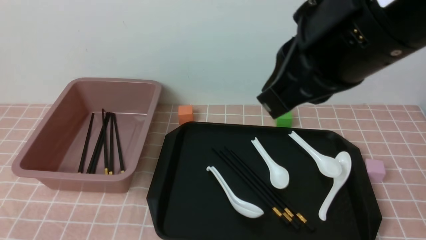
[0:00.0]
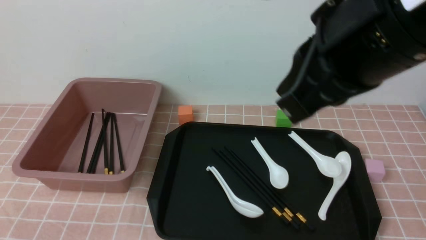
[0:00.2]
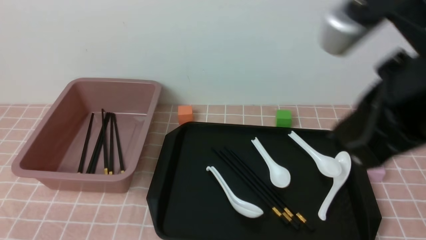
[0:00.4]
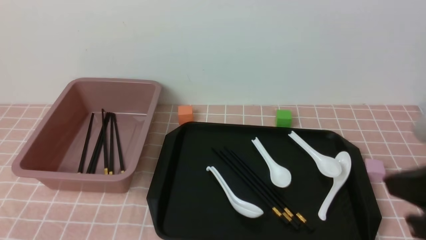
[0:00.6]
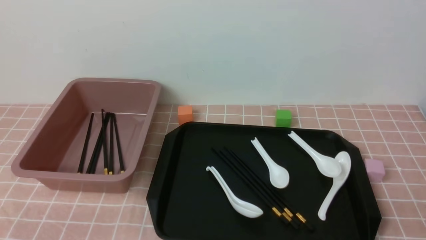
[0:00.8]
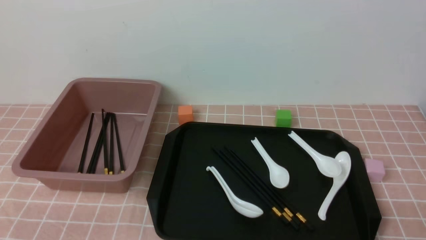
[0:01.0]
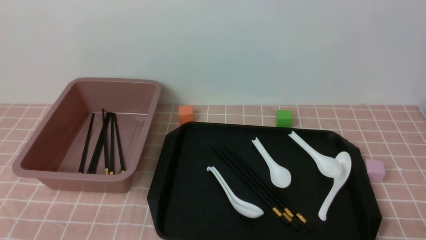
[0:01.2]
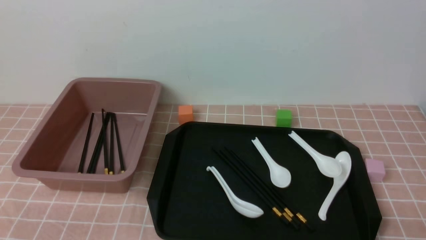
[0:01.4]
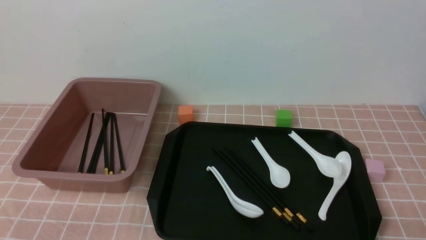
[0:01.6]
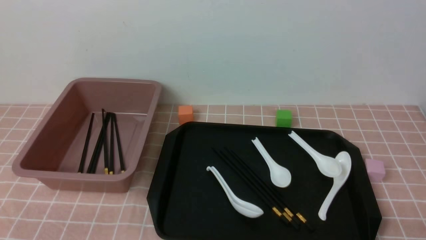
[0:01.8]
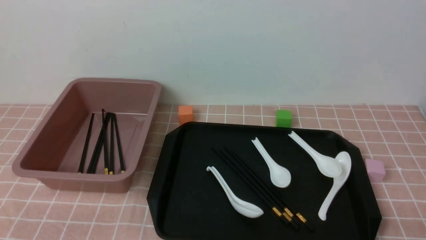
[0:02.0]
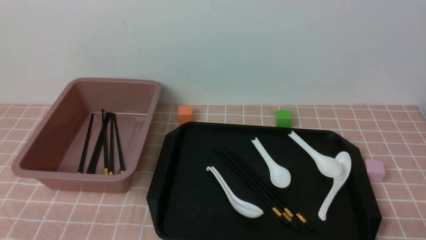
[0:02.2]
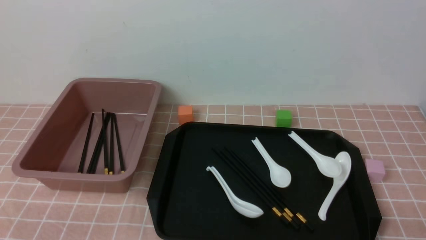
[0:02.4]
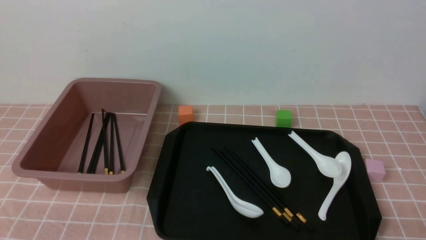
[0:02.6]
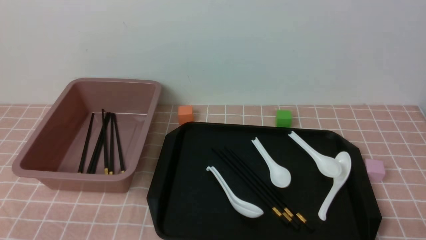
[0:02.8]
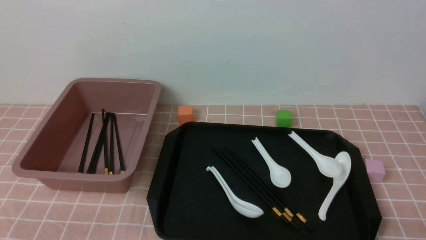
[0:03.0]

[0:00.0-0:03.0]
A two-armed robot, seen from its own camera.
0:00.0 to 0:01.6: The right gripper shifts about 35 cm downward, to the right and backward.

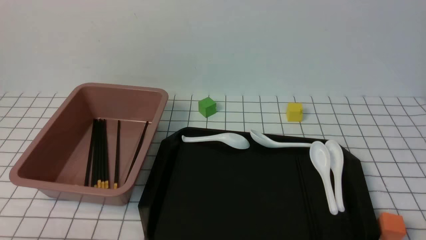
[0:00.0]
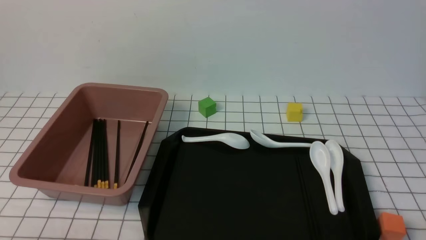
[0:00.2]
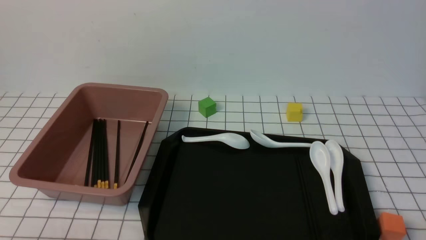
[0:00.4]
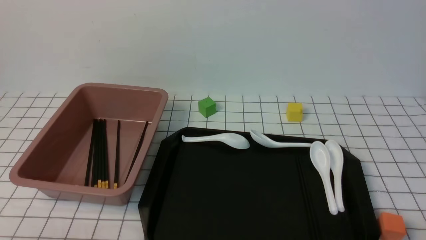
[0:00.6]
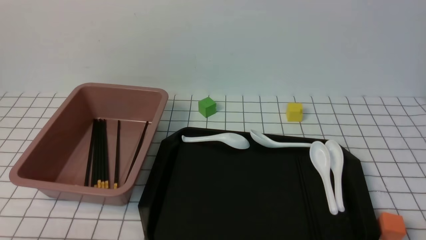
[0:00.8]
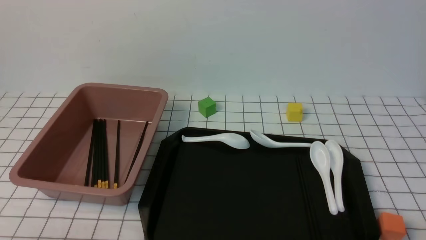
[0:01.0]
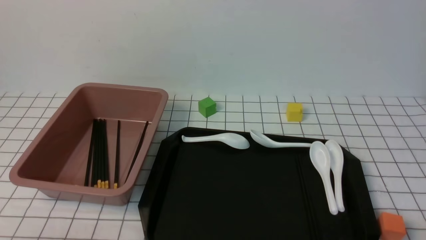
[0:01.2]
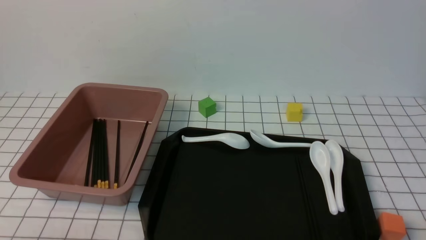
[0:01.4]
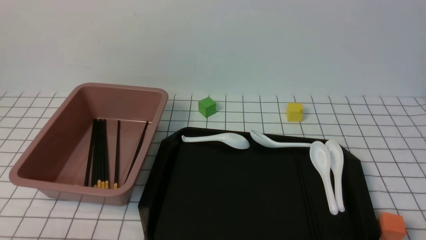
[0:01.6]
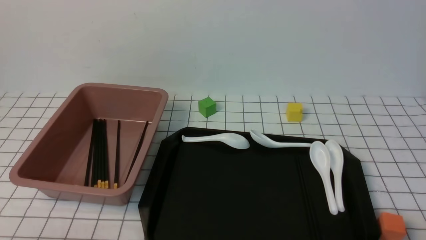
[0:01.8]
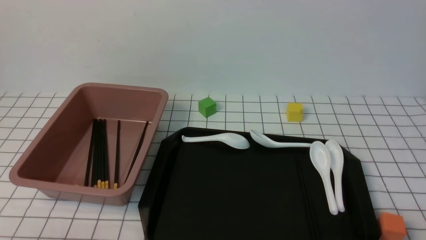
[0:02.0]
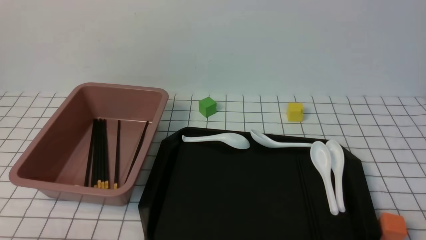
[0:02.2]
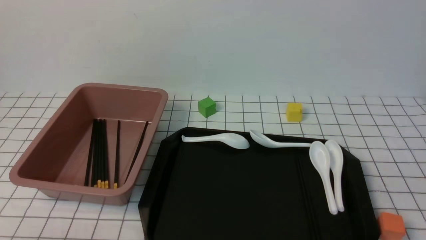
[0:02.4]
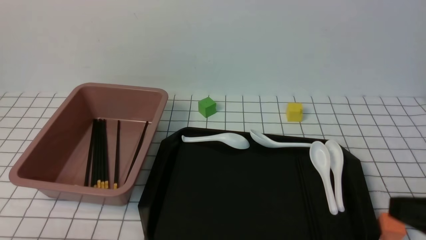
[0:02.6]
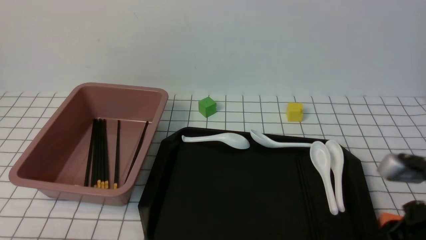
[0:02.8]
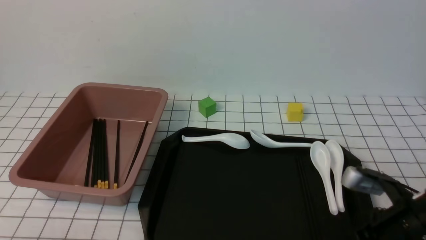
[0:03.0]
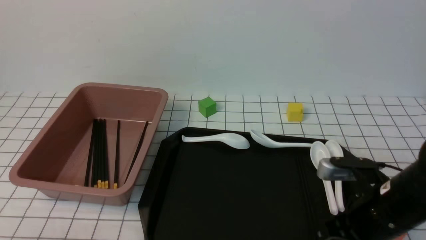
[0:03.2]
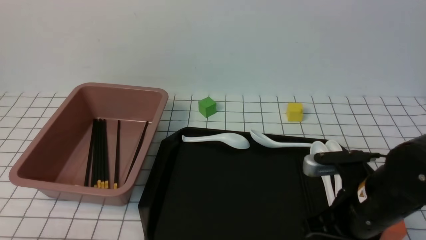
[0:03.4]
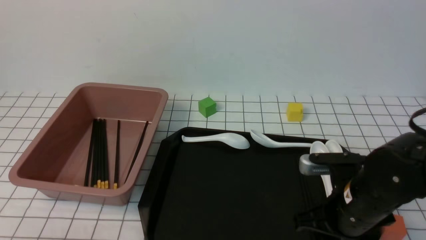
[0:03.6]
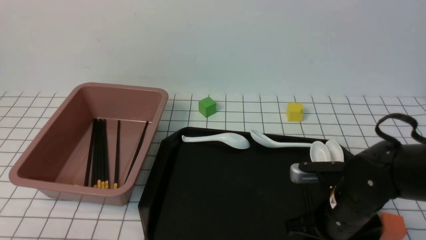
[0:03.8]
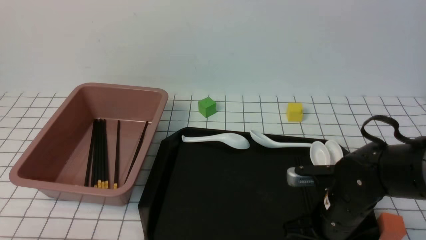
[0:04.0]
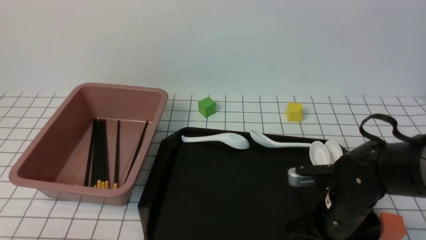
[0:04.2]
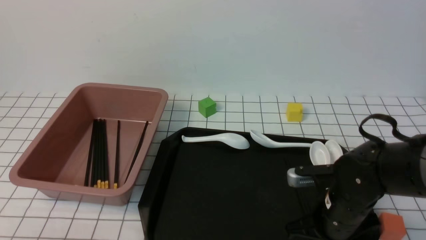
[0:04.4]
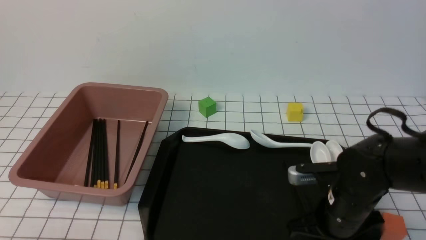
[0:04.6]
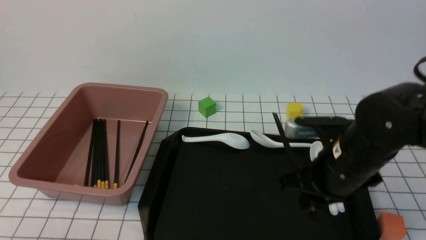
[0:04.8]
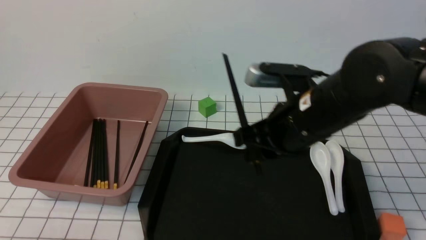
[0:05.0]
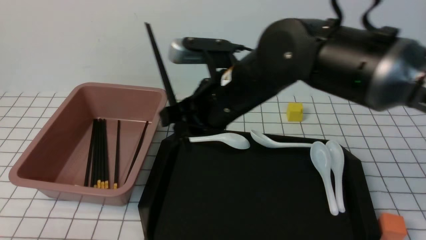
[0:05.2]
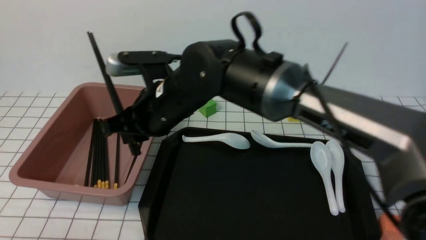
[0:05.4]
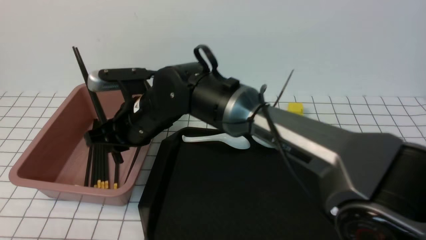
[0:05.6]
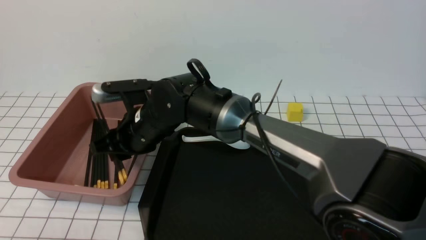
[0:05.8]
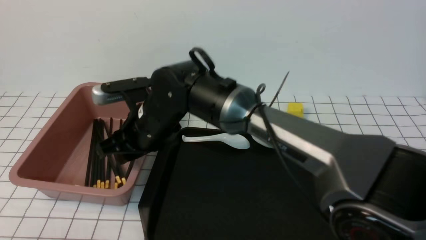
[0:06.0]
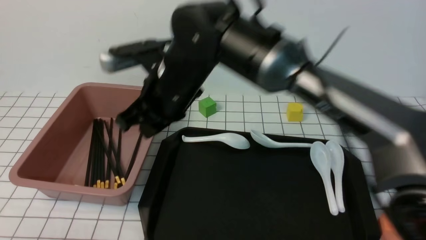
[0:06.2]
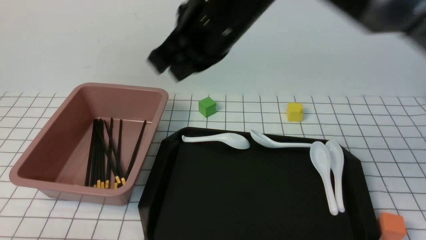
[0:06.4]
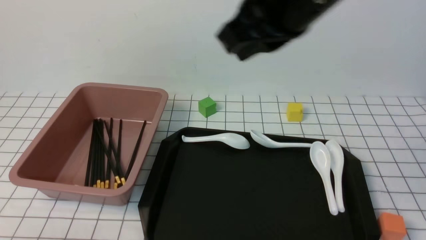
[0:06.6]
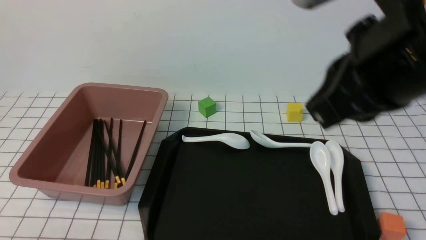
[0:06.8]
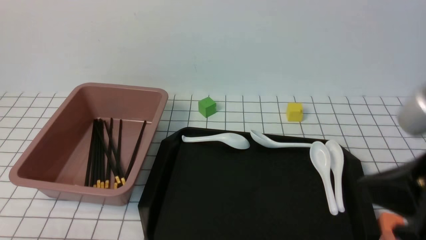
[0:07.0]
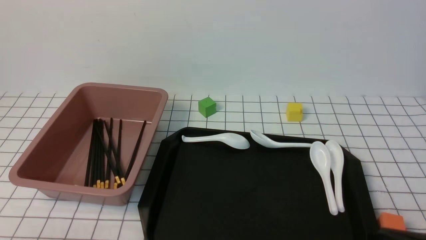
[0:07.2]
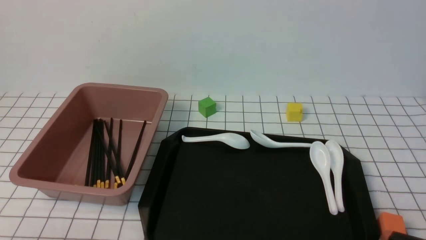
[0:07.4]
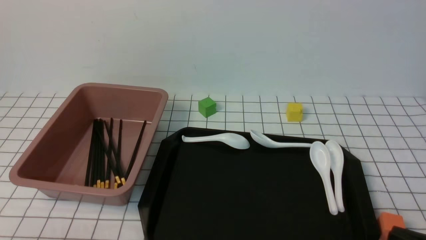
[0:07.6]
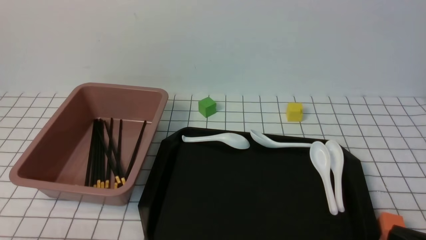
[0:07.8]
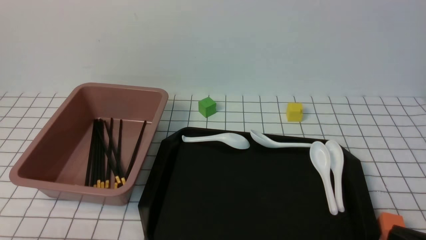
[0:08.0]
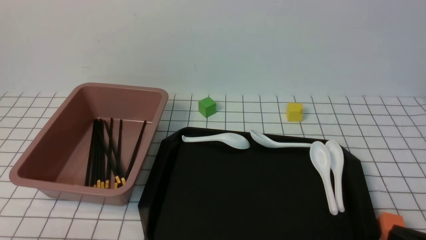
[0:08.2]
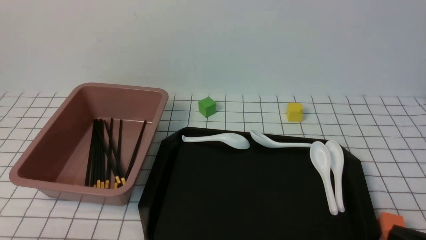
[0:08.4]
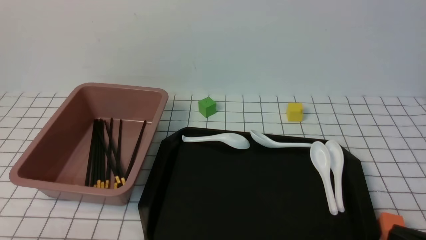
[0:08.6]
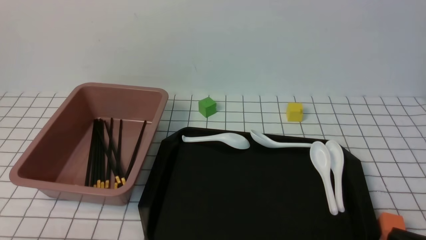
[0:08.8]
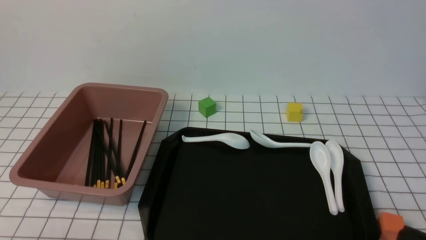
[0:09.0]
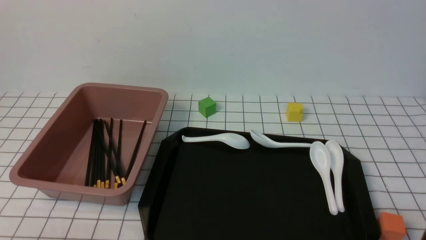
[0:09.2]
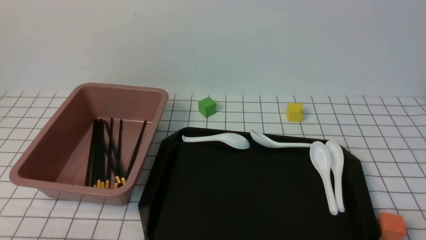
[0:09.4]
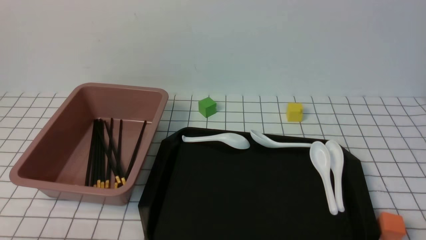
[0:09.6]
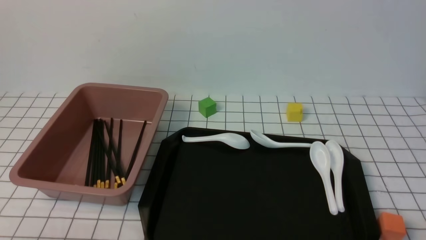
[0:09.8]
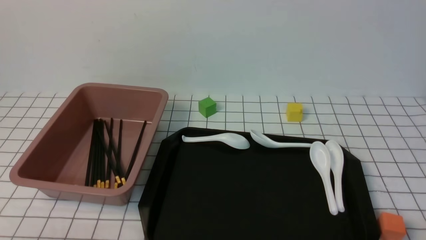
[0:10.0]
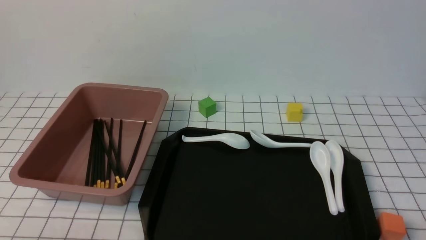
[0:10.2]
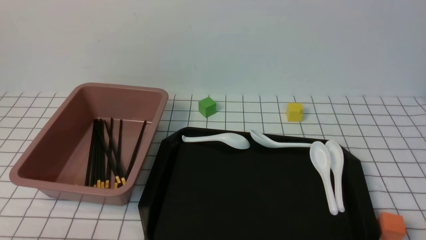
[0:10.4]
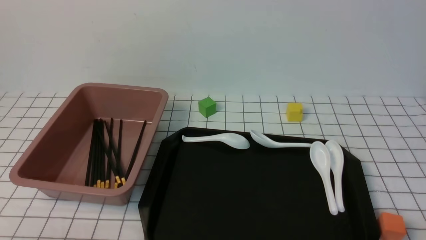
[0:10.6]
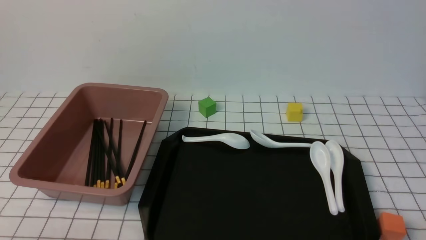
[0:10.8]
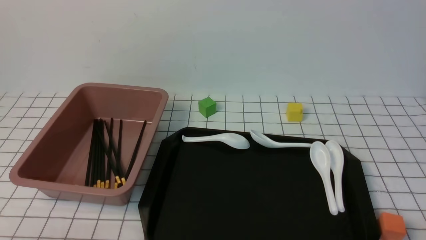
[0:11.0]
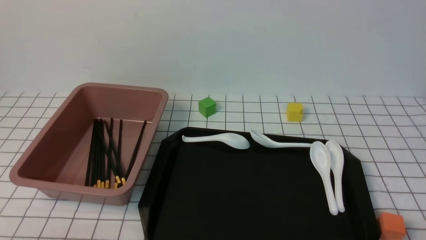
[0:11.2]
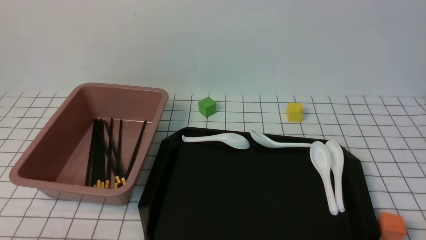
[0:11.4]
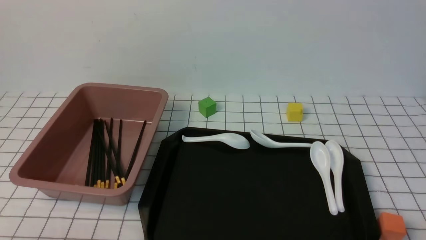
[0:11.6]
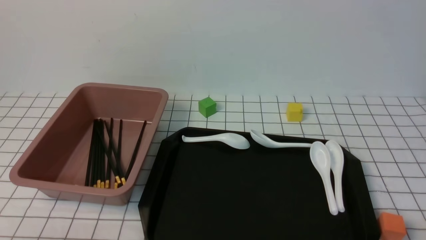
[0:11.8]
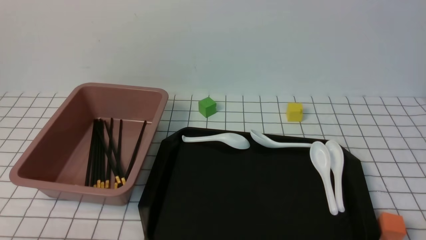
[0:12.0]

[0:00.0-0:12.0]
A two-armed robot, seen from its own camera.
0:01.6 to 0:03.0: The right gripper travels forward and to the left by approximately 15 cm, and closes up.
0:03.0 to 0:04.4: The right gripper is displaced downward, to the left and forward by approximately 10 cm, and opens.
0:04.4 to 0:06.0: The right gripper goes about 30 cm to the left and upward.
0:06.0 to 0:07.6: The right gripper moves to the right and backward, roughly 40 cm, and closes its fingers.
0:10.4 to 0:12.0: Both grippers stay about where they are.

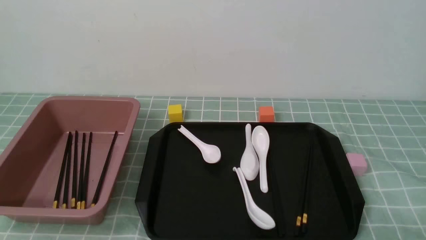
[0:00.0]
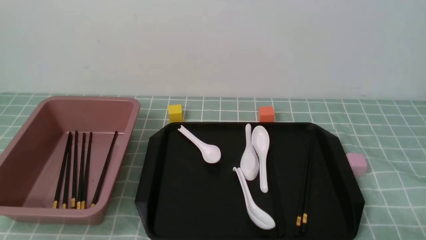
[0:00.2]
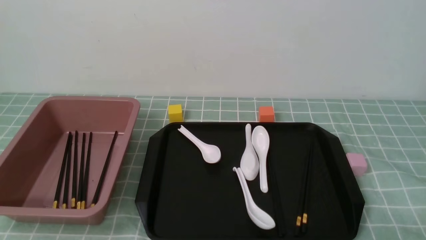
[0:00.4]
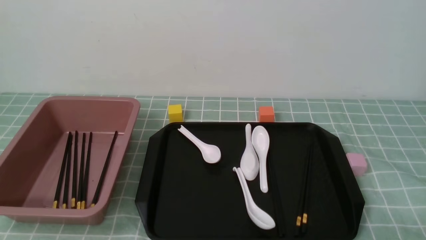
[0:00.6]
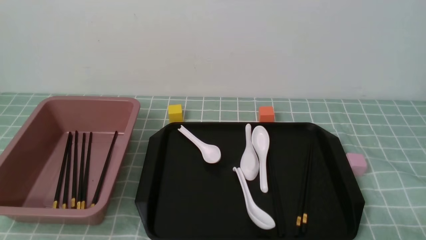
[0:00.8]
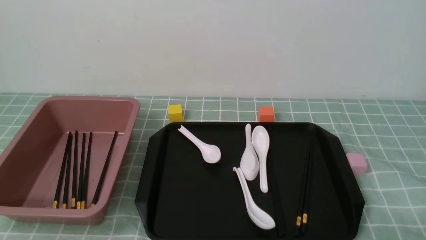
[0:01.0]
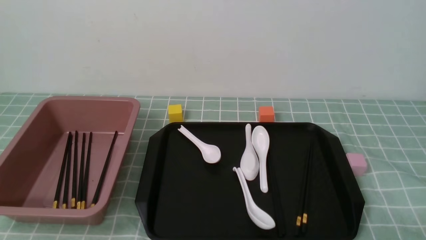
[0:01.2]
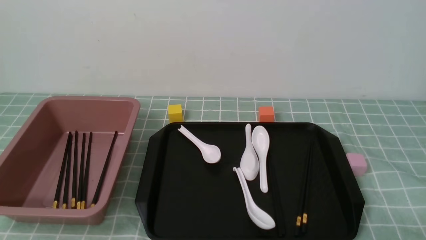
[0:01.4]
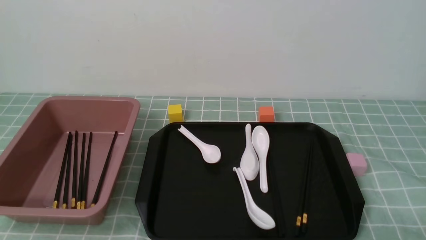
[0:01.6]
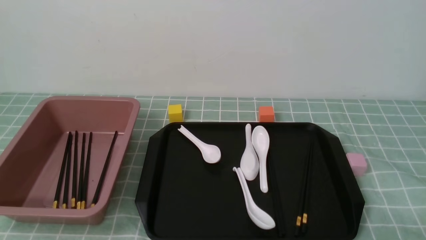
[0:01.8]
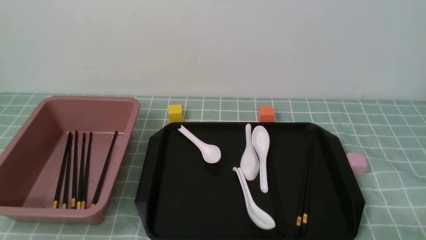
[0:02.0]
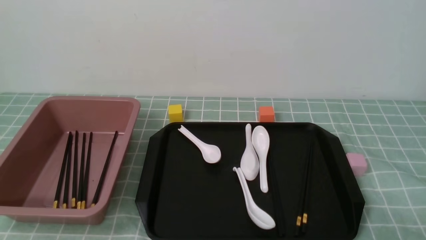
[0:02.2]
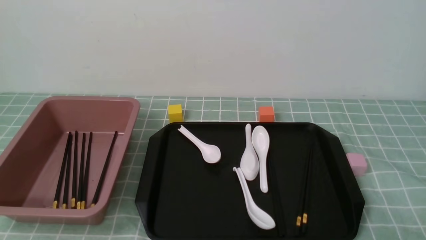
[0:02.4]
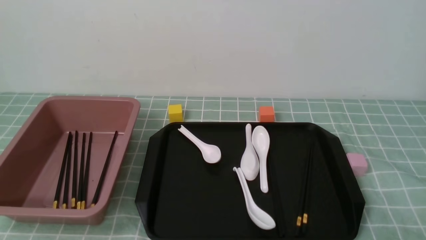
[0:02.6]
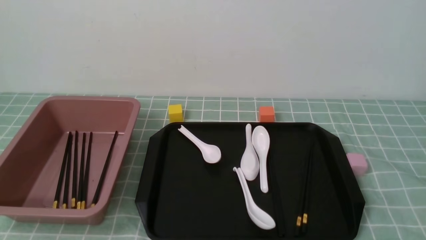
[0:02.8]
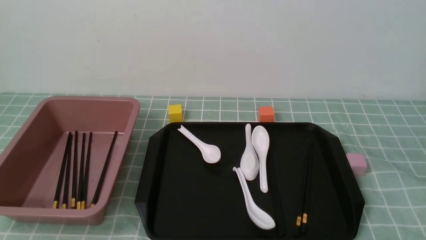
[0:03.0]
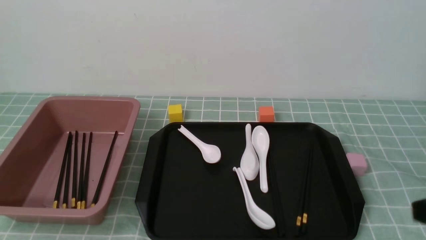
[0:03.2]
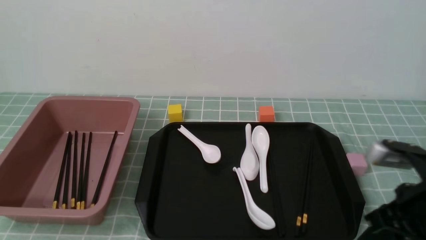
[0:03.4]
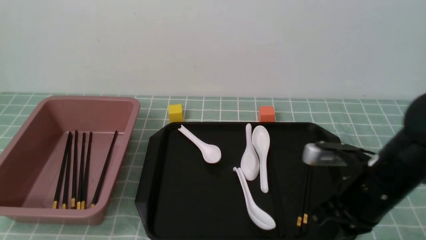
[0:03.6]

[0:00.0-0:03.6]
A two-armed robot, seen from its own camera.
0:00.0 to 0:01.8: Both grippers stay about where they are.
0:01.8 to 0:03.6: The right gripper shifts some 20 cm forward and to the left, and closes its fingers.
